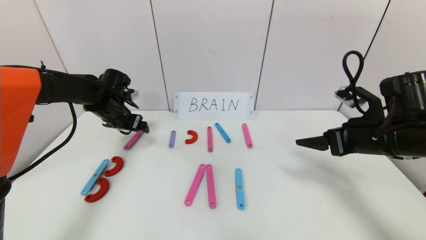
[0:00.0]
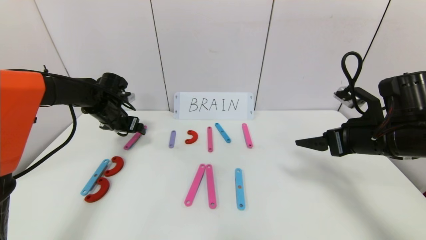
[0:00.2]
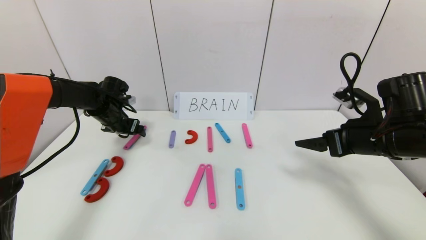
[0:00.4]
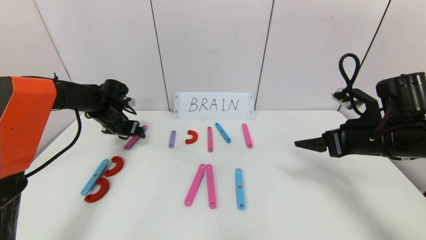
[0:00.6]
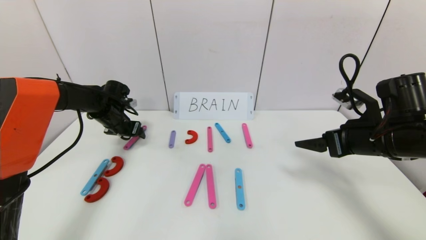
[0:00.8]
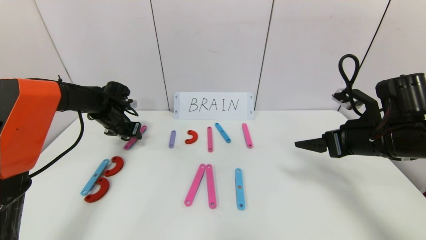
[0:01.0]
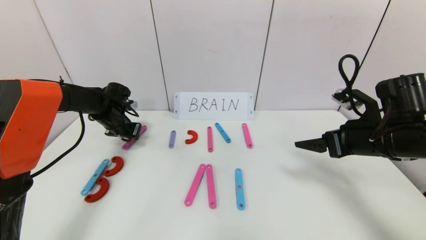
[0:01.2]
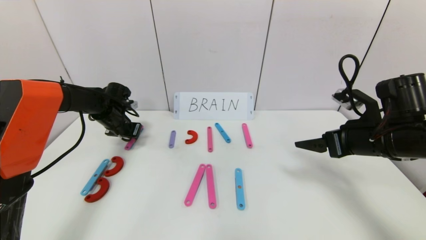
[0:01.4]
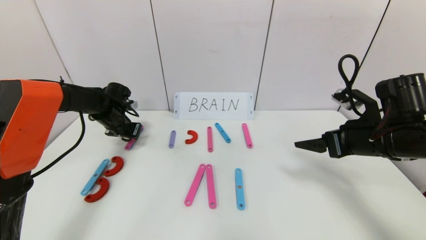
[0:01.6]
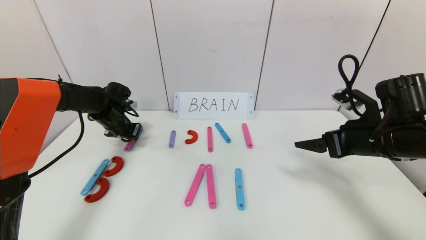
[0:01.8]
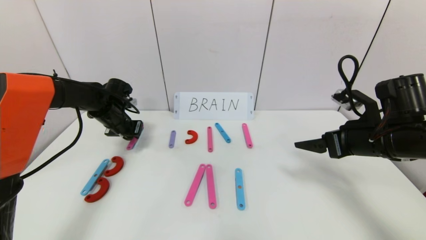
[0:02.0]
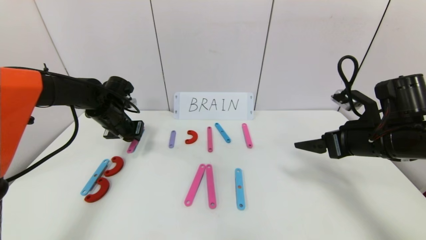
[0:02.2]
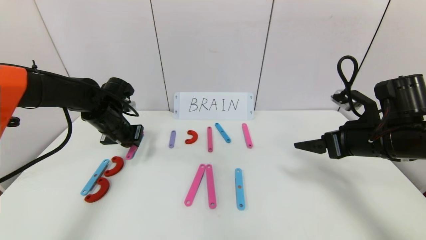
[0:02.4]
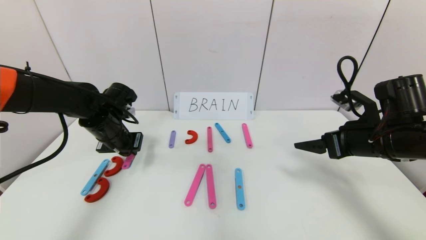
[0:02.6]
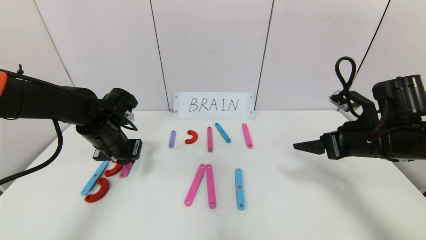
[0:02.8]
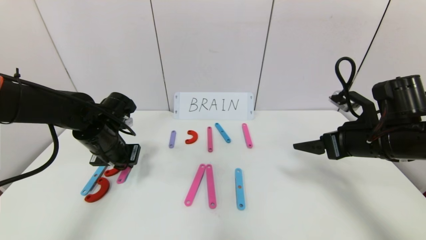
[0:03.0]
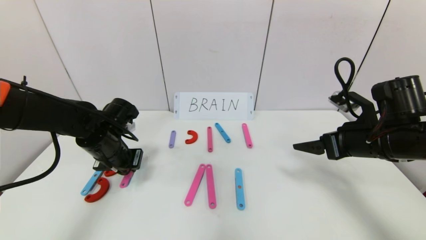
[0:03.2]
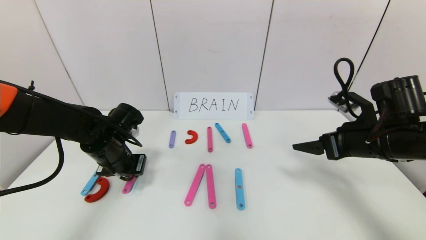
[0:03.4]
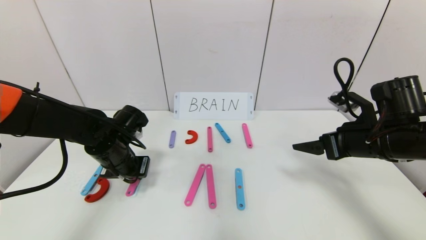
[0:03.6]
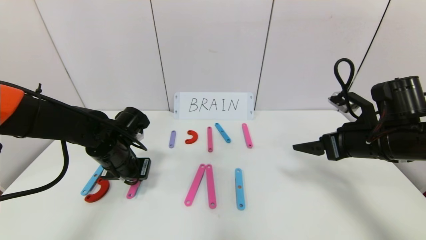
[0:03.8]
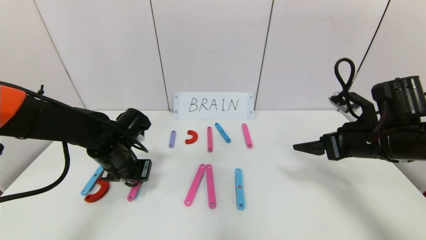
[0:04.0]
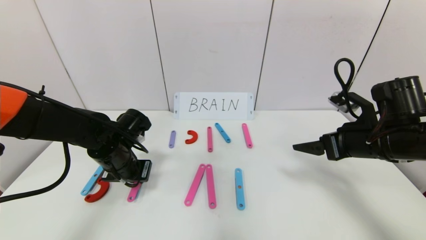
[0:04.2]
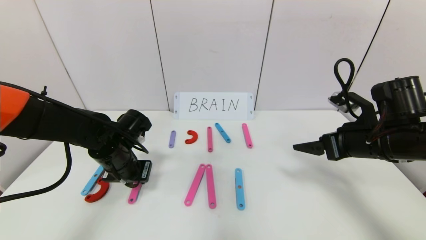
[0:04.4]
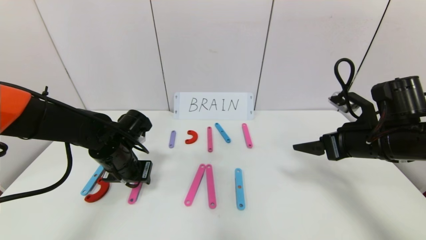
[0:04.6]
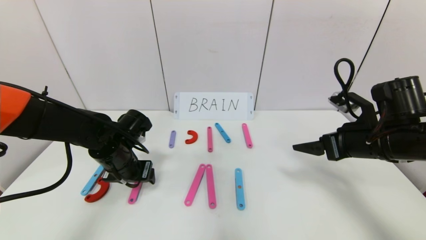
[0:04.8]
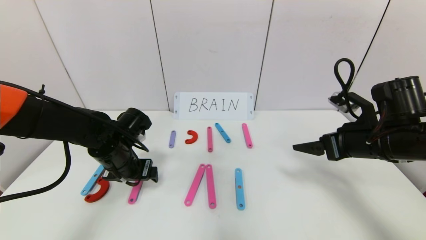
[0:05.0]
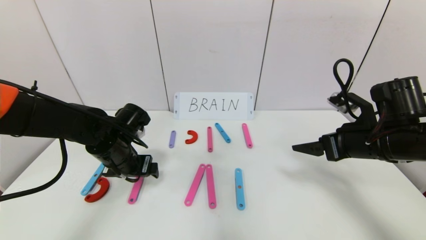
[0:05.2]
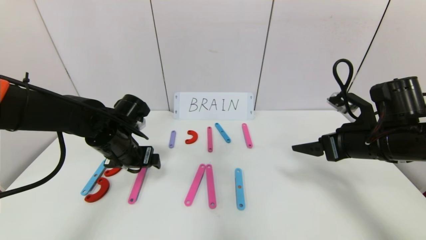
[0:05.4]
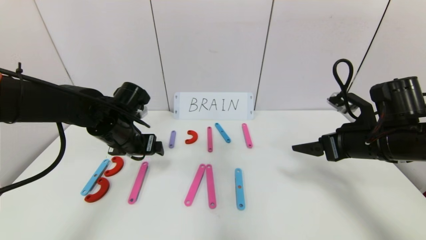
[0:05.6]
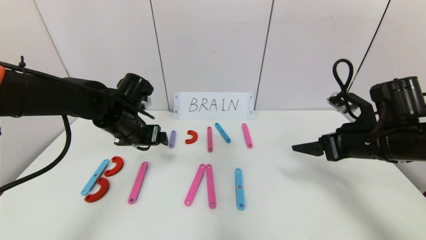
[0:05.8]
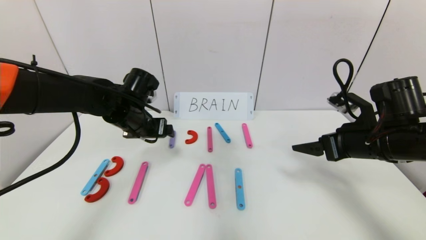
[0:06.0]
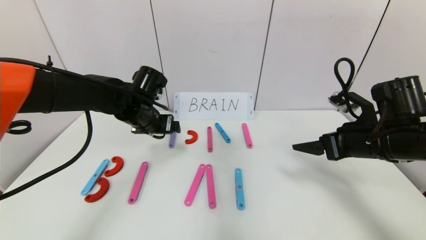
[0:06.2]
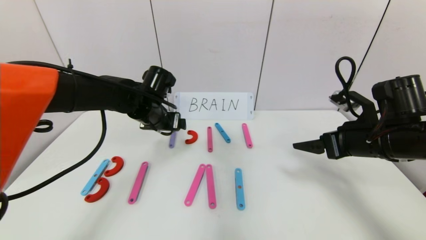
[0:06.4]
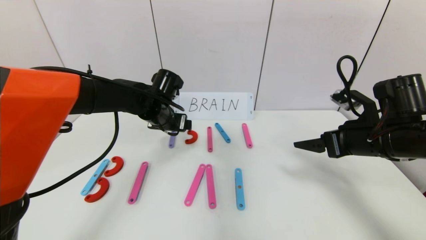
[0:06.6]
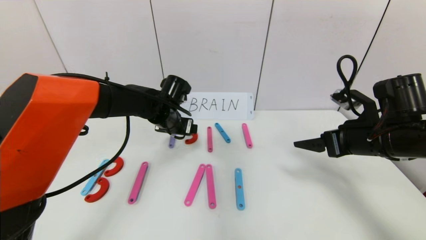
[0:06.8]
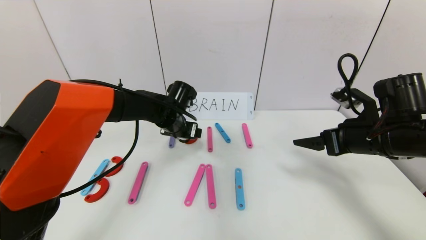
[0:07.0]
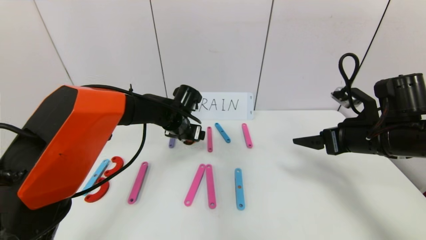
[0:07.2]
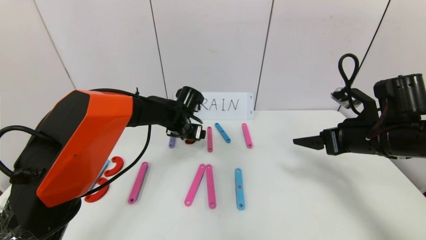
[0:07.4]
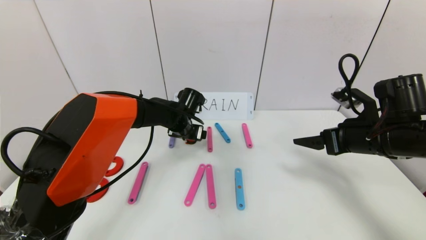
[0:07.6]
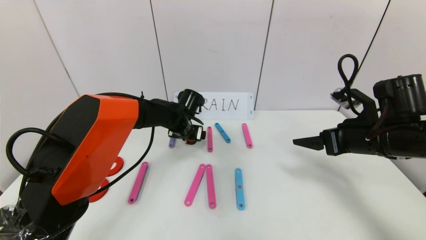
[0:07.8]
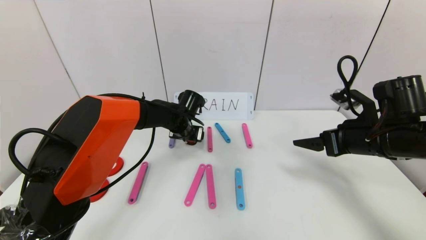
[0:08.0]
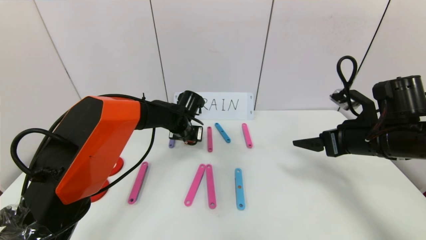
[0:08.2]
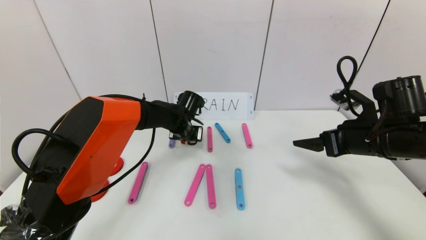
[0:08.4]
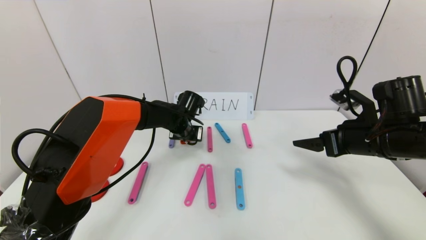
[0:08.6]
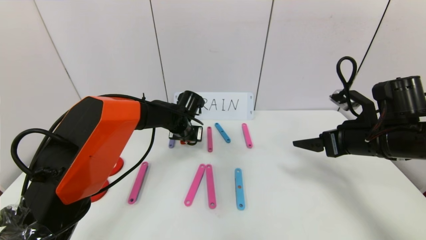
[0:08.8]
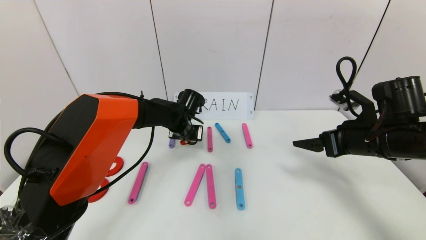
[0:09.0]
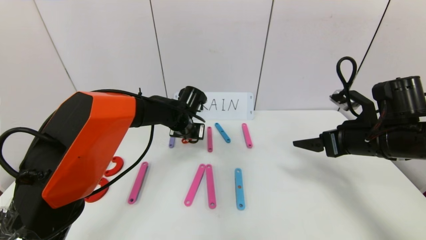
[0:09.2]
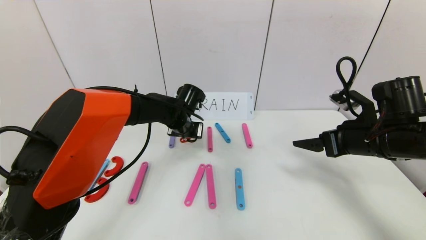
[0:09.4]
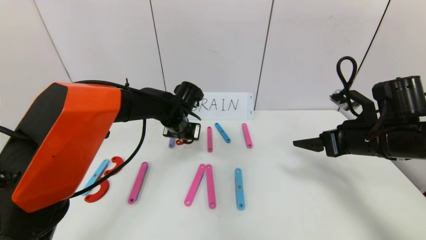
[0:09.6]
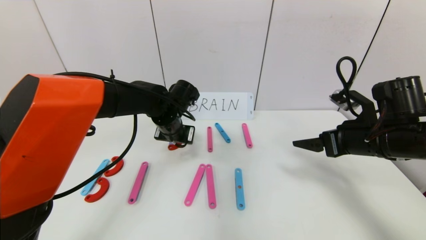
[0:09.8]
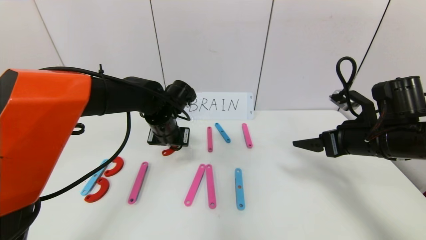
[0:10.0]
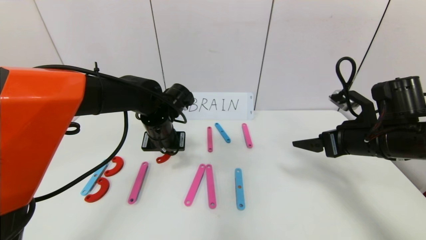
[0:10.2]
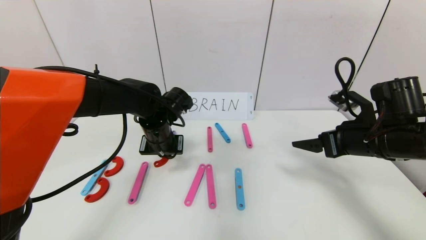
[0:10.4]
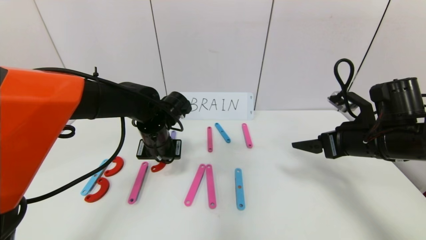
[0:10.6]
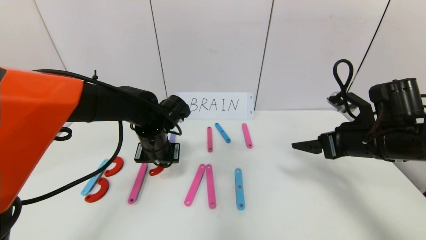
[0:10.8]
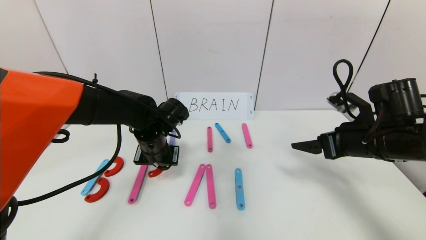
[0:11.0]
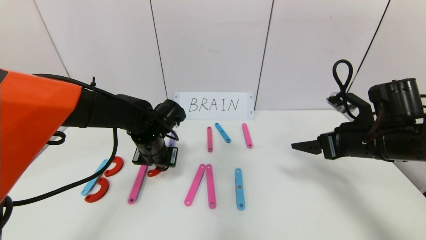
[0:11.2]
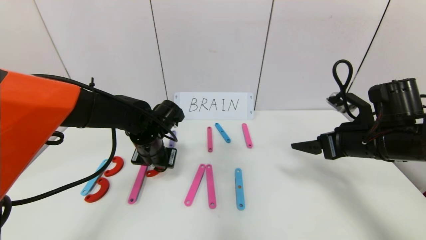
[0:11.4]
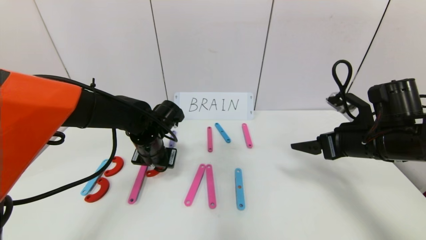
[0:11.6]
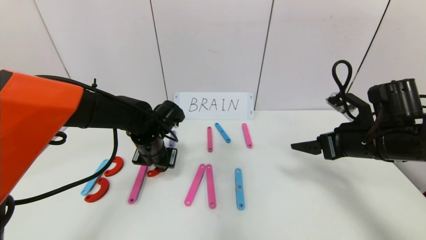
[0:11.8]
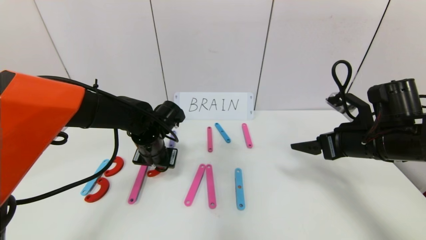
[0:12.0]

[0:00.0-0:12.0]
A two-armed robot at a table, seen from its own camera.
Task of the whole recording: rearrange the word baai as brain.
0:00.0 to 0:01.6: The left gripper ends up some 5 cm from where it was, and closes its fingers.
0:01.6 to 0:03.0: The left gripper goes roughly 15 cm backward and to the right.
0:03.0 to 0:04.4: There are only small adjustments of the grippers.
0:04.4 to 0:06.0: The left gripper is displaced upward by approximately 5 cm, and opens up.
0:06.0 to 0:07.6: The left gripper heads to the right, forward and downward, covering roughly 15 cm.
0:07.6 to 0:09.0: The left gripper closes.
0:09.0 to 0:10.4: The left gripper goes some 10 cm backward.
0:10.4 to 0:12.0: The grippers stay close to where they were, moving slightly.

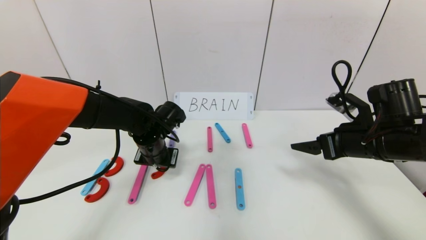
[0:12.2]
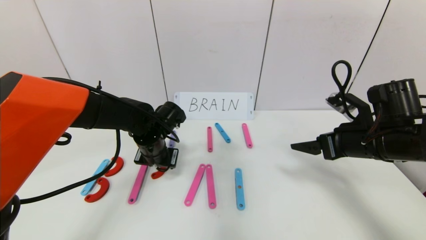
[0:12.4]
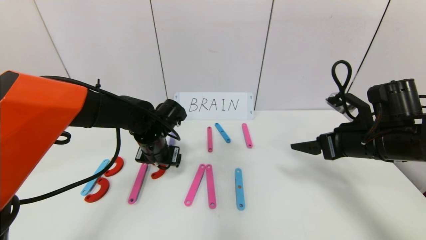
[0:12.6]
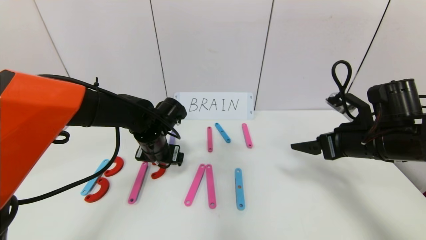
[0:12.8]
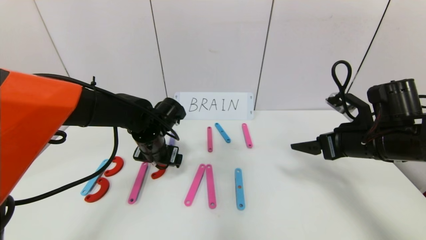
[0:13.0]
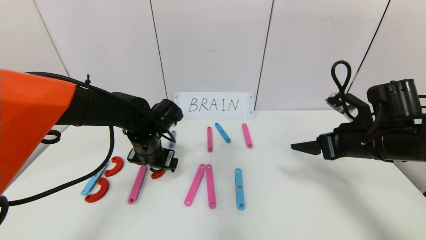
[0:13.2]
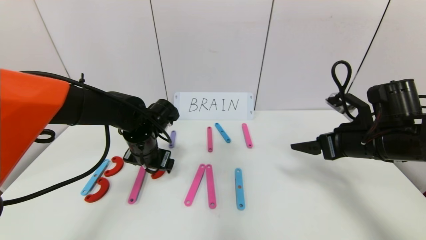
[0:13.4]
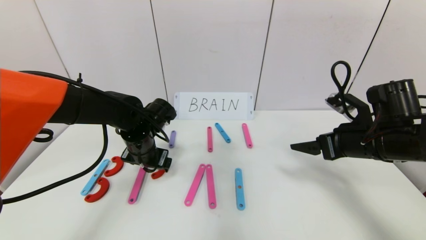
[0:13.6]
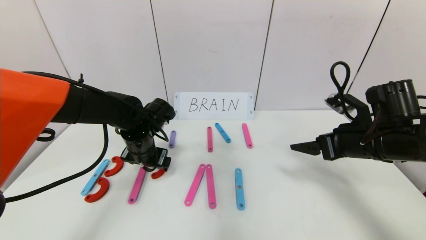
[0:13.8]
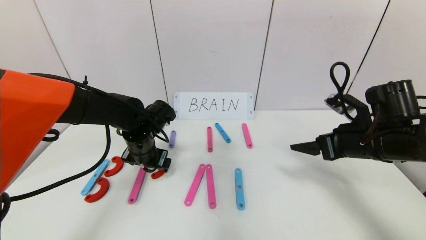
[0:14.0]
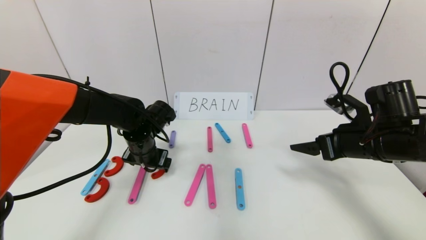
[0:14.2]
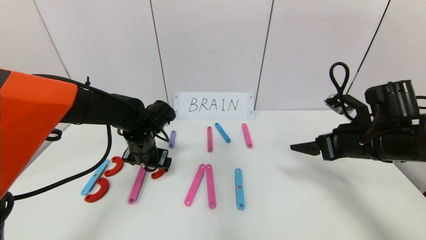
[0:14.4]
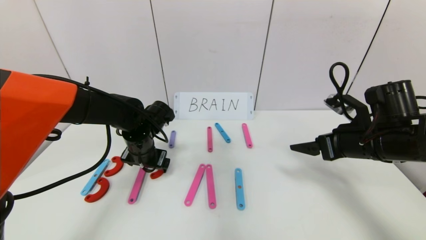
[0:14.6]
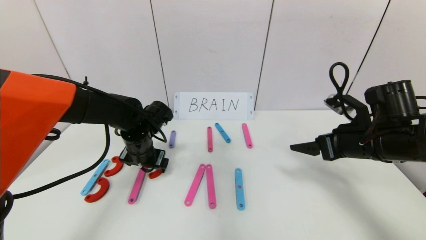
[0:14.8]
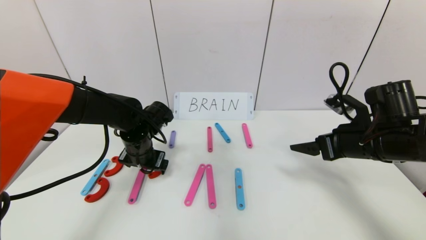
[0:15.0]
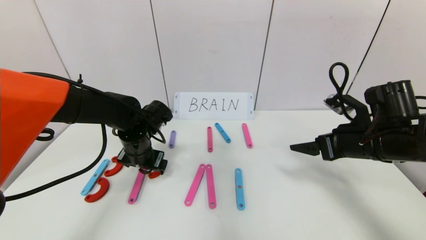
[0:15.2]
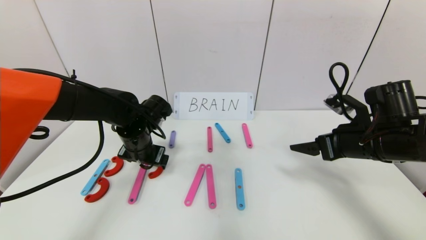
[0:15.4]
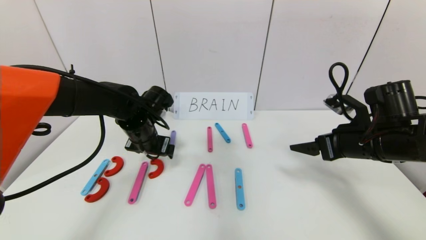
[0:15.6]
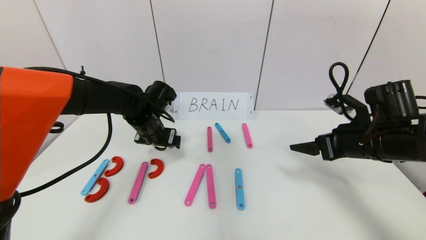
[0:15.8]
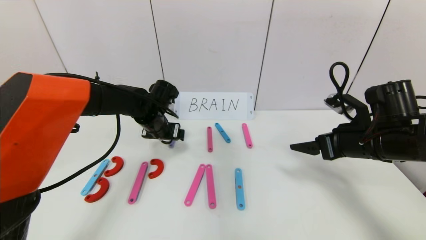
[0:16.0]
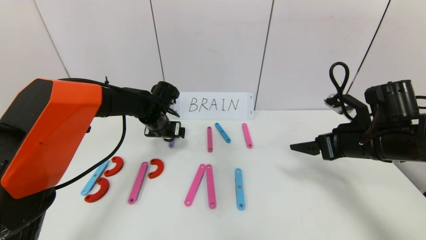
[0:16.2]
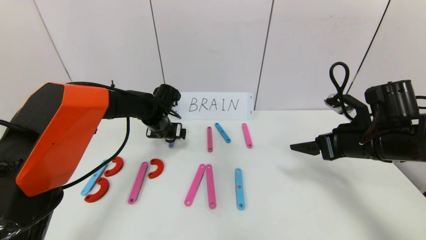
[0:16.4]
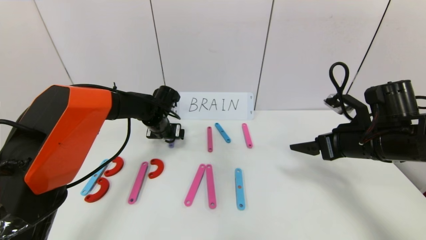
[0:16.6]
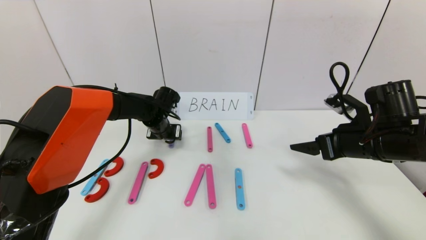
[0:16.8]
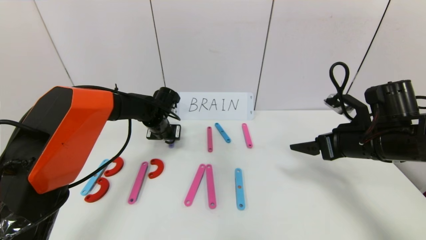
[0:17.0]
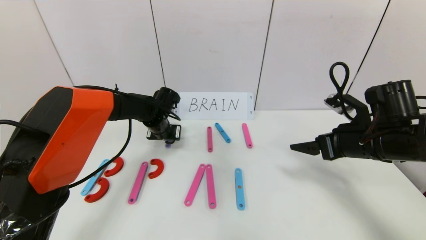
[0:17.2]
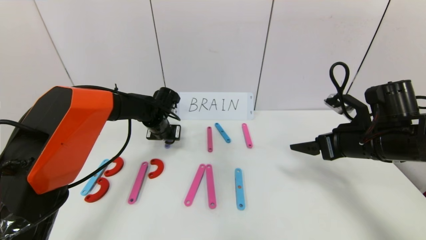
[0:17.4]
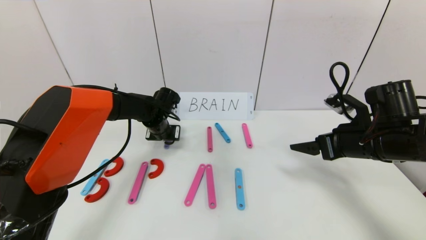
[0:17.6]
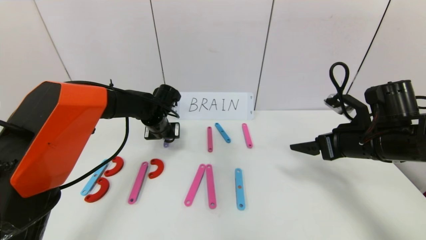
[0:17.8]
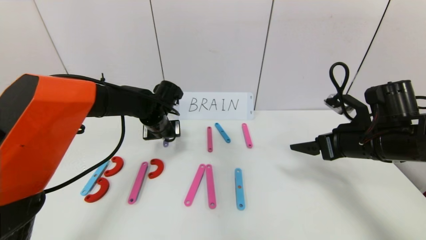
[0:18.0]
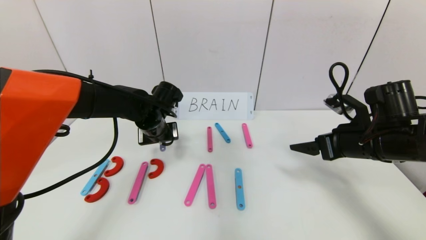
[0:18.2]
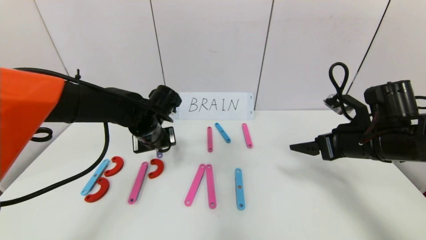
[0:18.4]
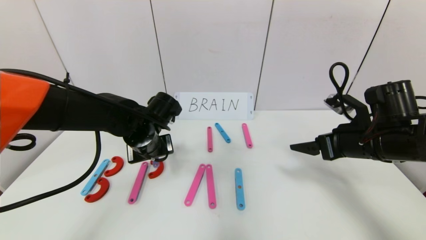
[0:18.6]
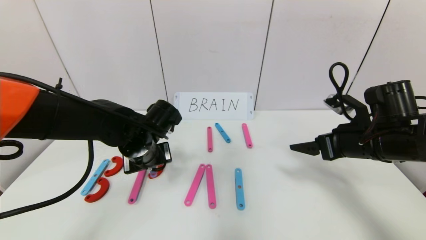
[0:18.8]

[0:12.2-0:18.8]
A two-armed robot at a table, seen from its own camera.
Task of the whole recording: rearrange the word baai as brain.
0:12.2 to 0:13.8: The left gripper opens its fingers.
0:13.8 to 0:15.4: The two grippers keep their place.
0:15.4 to 0:17.2: The left gripper is displaced forward by about 10 cm, and closes.
0:17.2 to 0:18.8: The left gripper moves backward, roughly 15 cm.
